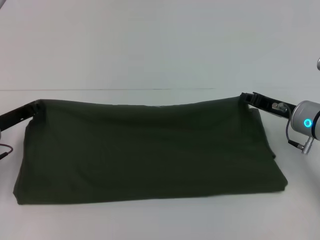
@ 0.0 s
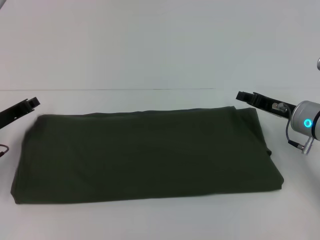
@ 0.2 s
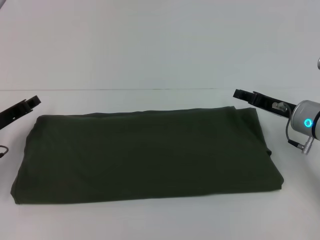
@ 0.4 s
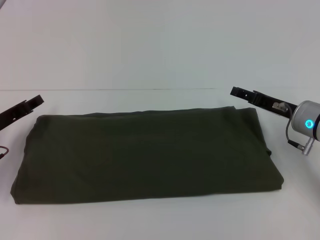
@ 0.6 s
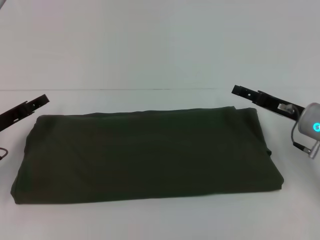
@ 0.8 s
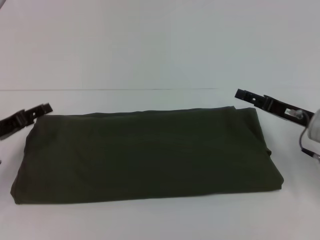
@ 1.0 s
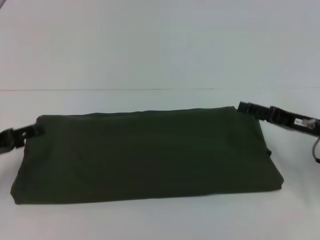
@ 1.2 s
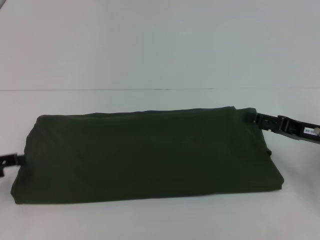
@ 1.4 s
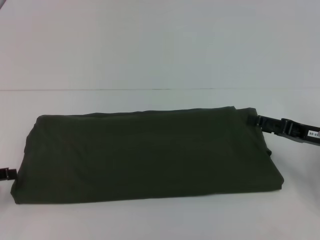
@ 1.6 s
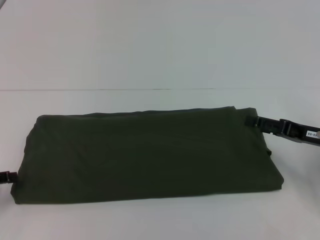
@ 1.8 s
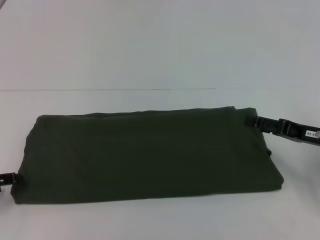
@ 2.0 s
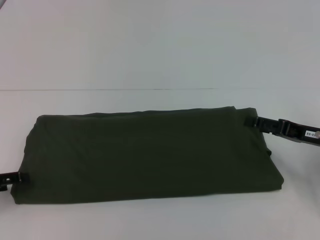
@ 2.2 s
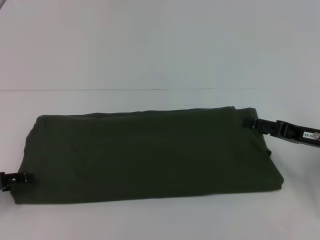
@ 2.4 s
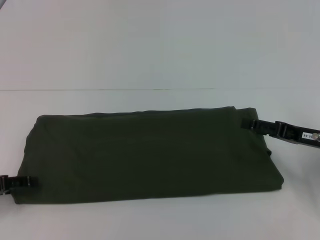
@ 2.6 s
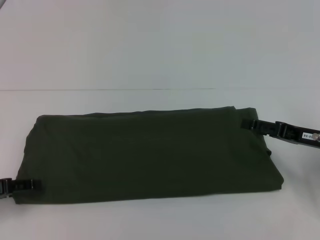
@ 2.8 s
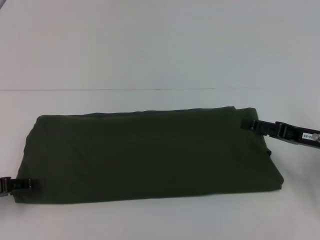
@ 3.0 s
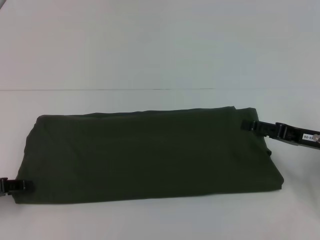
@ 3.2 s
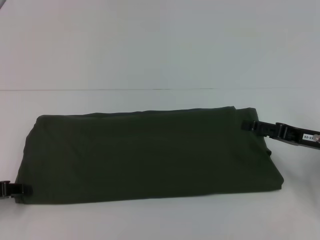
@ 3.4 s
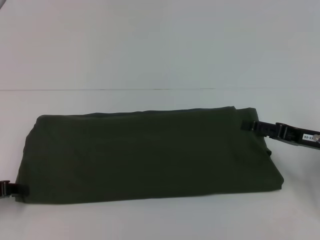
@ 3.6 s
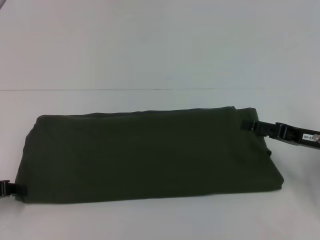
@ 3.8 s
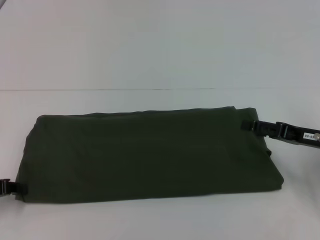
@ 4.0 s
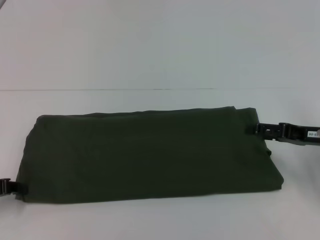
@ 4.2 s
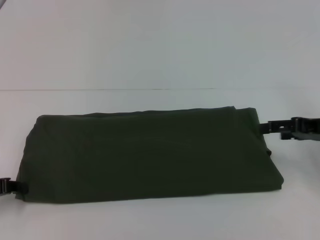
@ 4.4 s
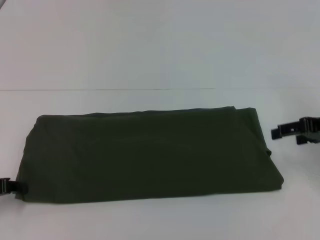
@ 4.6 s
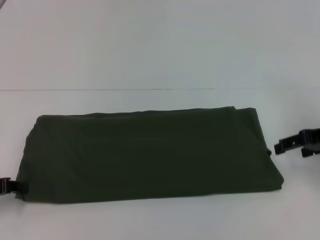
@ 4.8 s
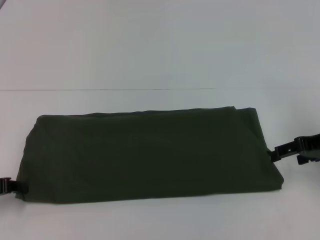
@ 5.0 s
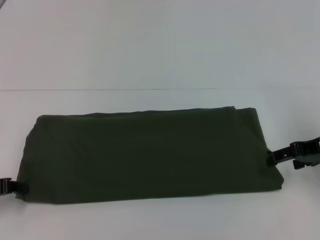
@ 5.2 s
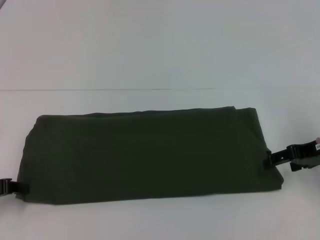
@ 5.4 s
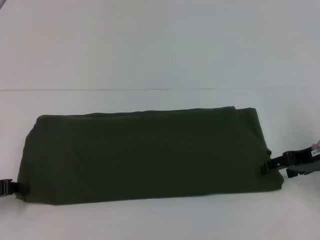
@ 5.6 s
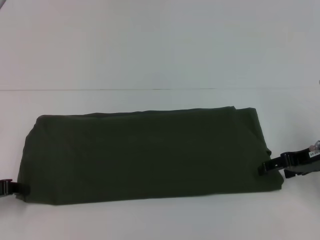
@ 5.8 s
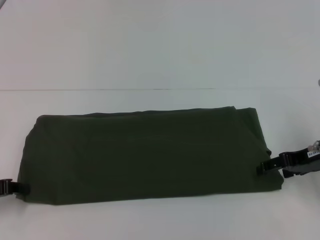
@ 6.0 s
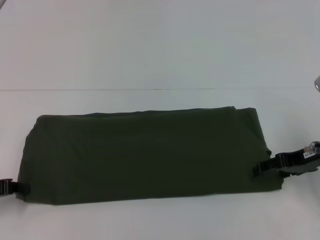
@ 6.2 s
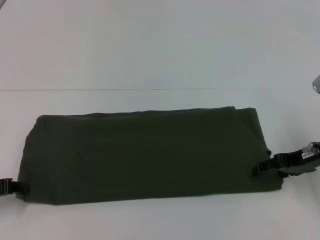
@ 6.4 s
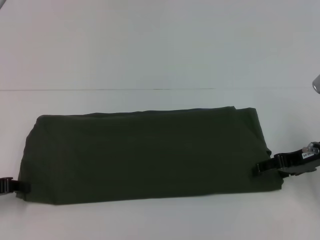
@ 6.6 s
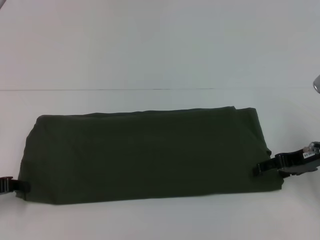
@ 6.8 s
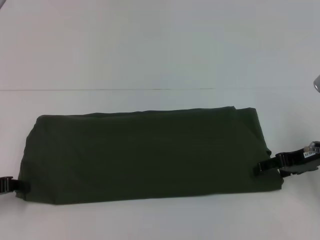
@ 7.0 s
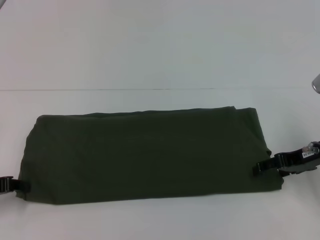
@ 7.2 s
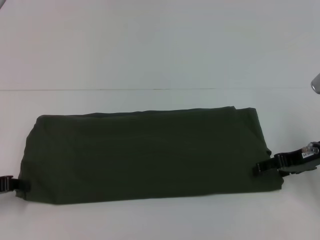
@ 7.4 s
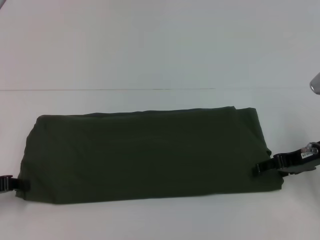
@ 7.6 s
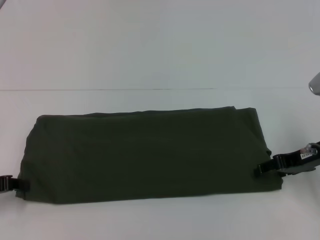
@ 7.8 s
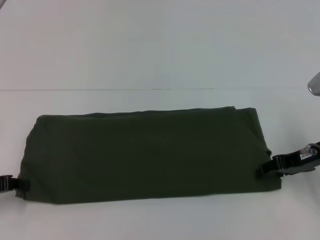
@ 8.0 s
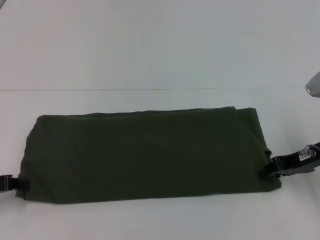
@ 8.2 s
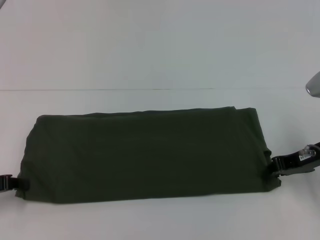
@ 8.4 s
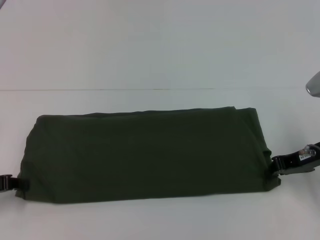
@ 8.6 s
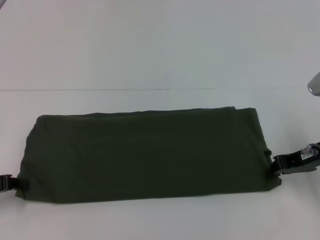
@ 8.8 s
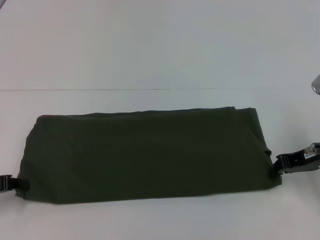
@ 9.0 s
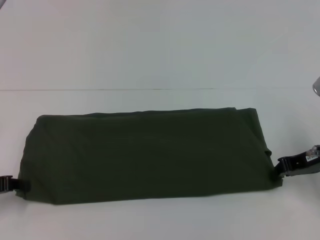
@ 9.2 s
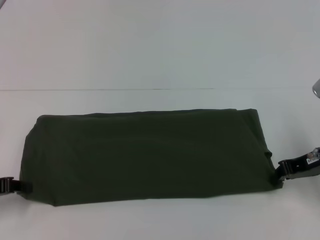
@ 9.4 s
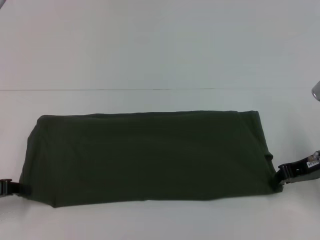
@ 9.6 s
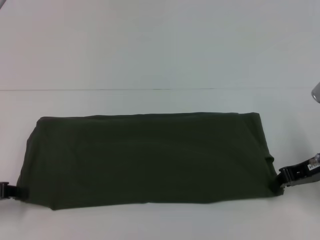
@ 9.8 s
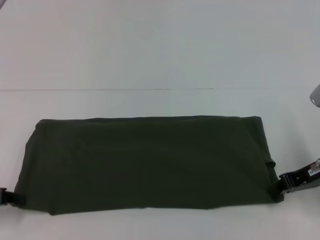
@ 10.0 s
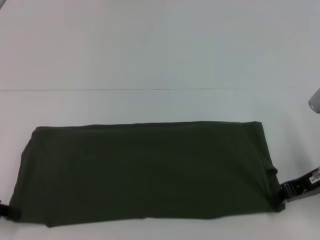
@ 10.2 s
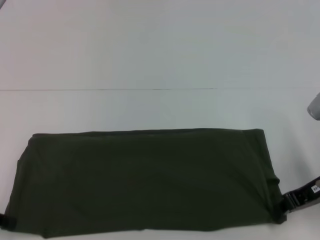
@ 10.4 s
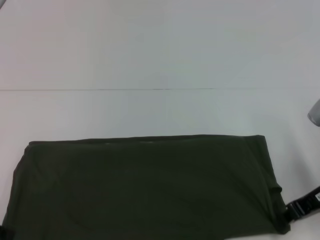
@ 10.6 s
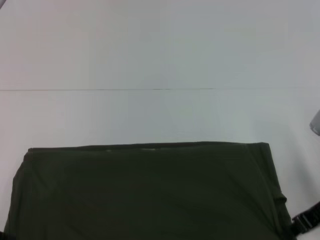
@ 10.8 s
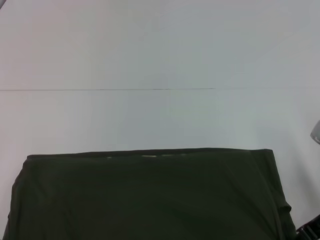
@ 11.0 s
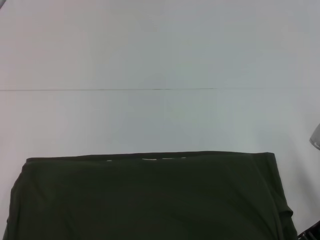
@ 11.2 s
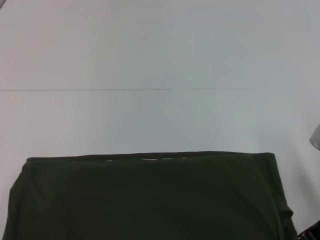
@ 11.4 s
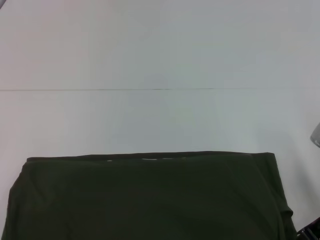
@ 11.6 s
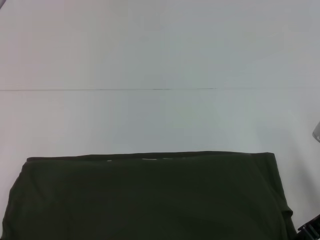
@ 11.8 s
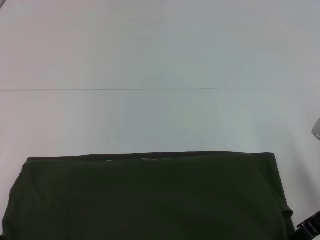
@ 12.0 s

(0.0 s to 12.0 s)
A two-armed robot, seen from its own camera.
0.0 s - 1.6 s: The right gripper is displaced backward and to the right by about 10 cm, and opens up. Meanwhile the left gripper heads backward and to the left, covering approximately 10 cm, and opens.
1.6 s - 3.0 s: The grippers make only small movements.
3.0 s - 4.4 s: The right gripper goes approximately 5 cm upward.
6.0 s - 7.6 s: Both grippers stay put.
7.6 s - 9.0 s: The right gripper closes up.
10.4 s - 12.0 s: The grippers stay close to where they were, moving slightly.

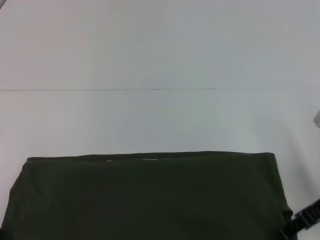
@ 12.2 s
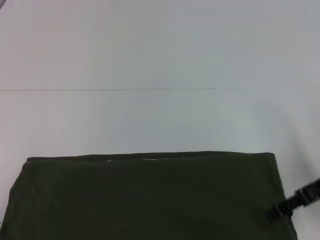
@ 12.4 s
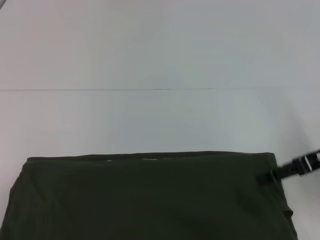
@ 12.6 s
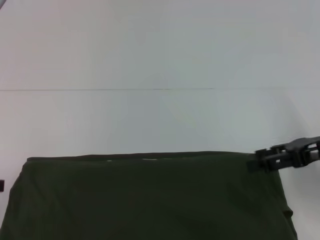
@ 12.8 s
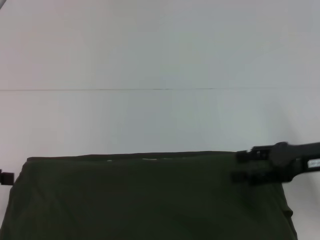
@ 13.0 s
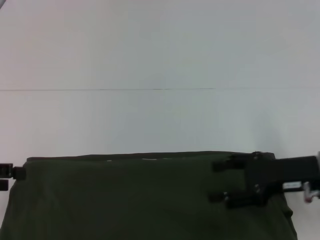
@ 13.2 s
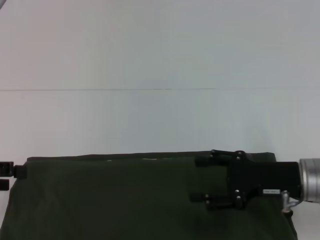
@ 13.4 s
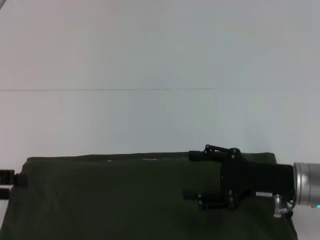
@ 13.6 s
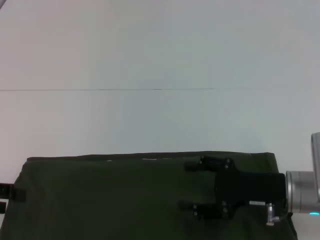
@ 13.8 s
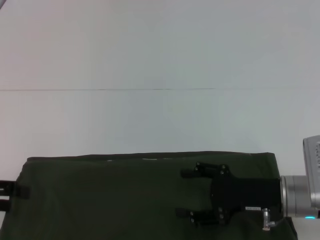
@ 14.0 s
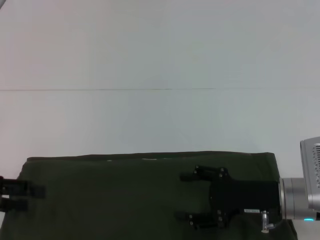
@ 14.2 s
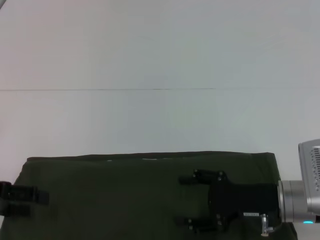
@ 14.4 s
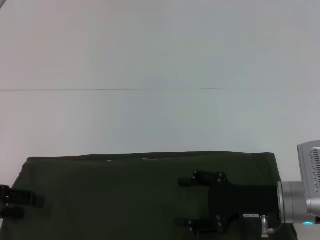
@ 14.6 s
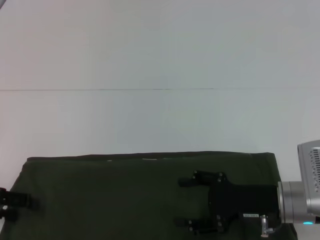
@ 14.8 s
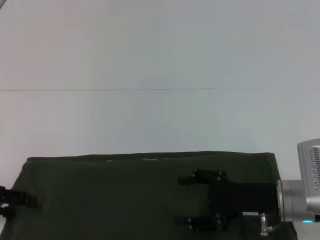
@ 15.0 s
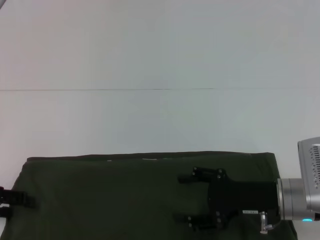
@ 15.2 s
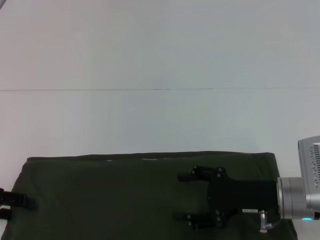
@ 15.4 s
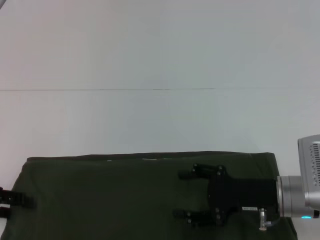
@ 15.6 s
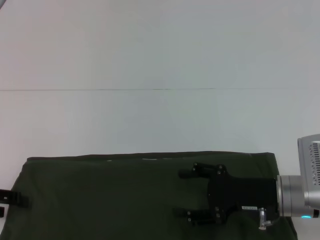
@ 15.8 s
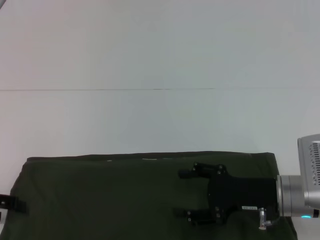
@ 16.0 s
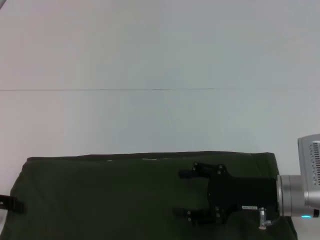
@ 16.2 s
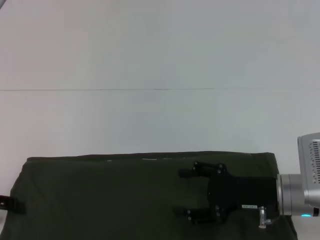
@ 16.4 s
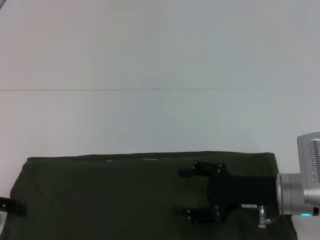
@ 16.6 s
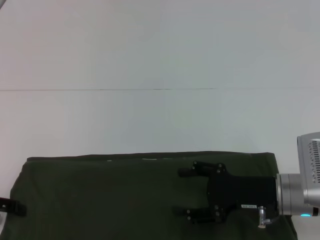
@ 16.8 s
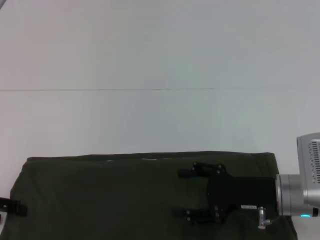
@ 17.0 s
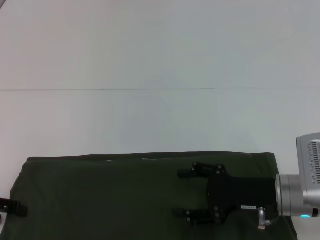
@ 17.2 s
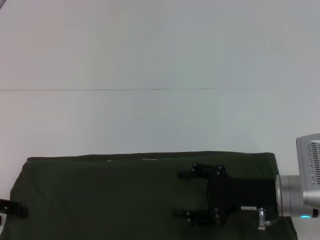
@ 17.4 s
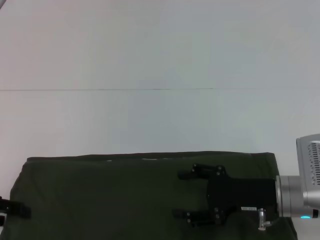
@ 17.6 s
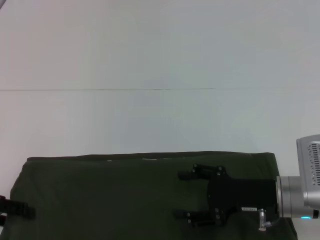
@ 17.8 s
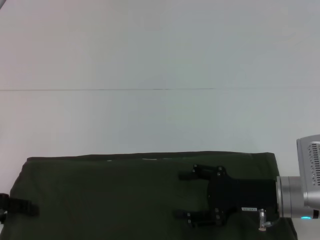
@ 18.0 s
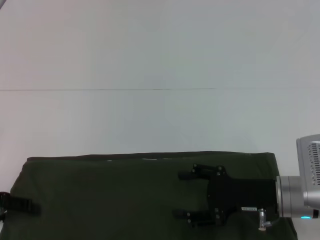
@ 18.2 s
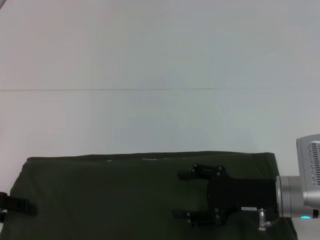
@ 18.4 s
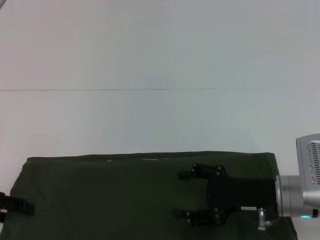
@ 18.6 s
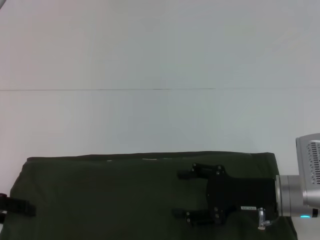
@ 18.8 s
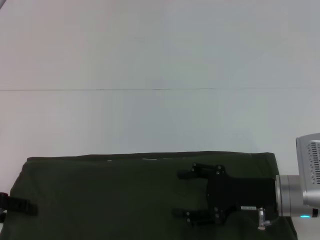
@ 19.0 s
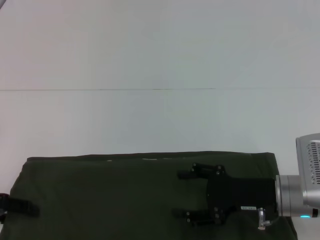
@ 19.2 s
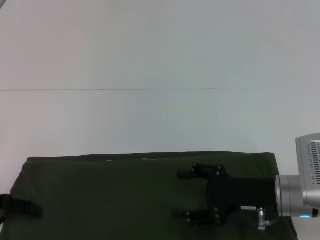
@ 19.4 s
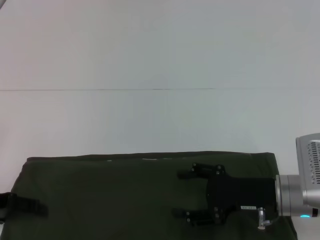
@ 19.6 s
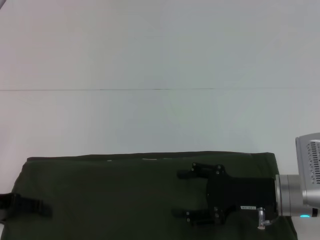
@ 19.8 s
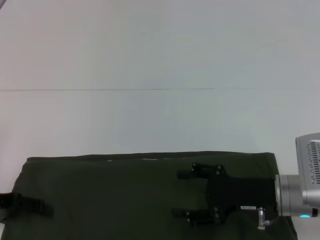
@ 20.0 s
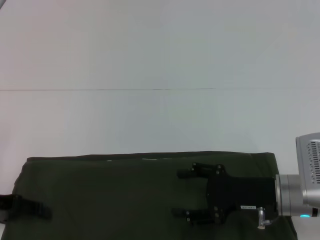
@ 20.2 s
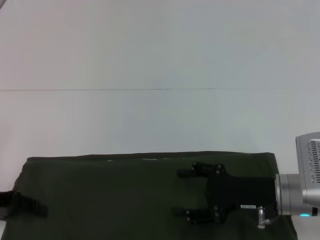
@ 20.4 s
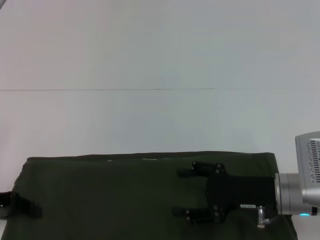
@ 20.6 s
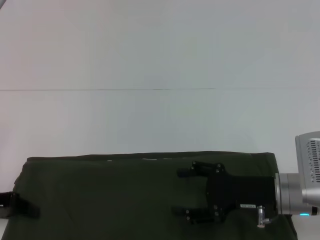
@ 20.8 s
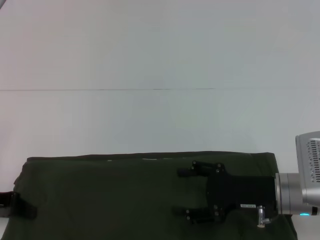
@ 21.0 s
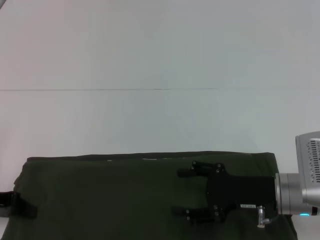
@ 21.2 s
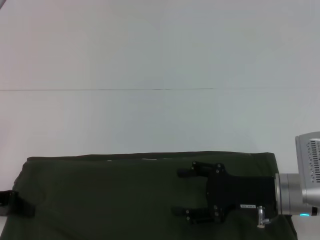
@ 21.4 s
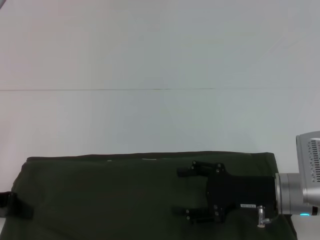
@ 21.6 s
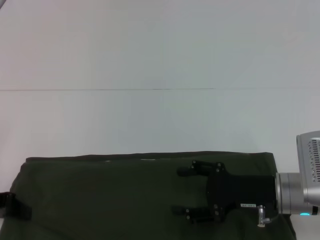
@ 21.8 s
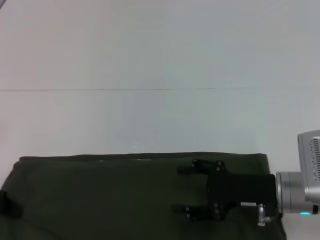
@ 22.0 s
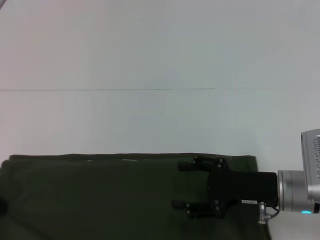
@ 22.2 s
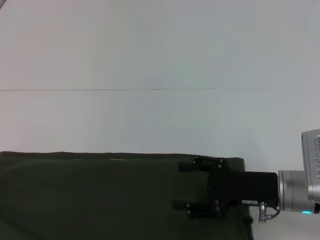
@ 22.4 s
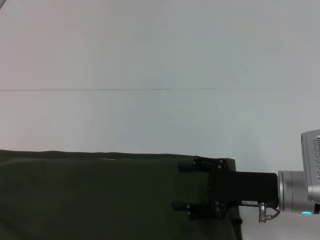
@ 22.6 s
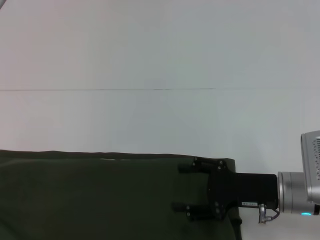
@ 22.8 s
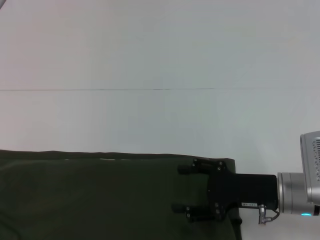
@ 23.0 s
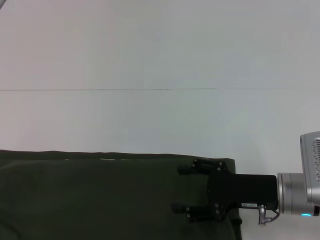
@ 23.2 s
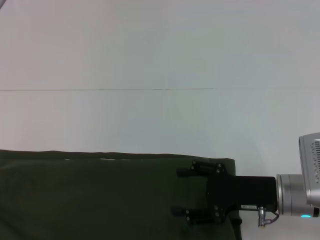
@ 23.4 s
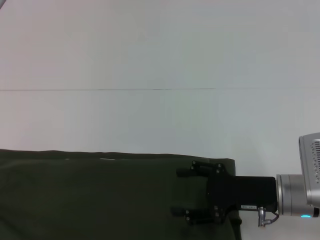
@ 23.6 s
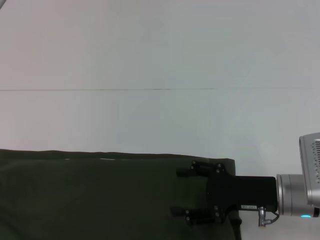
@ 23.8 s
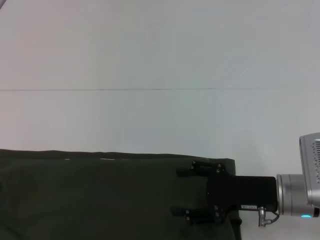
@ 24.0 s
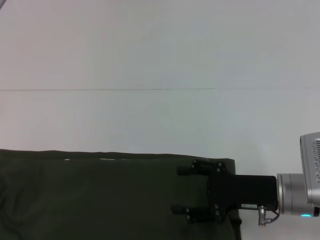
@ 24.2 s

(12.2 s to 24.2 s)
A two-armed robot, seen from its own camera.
12.2 s - 13.8 s: The left gripper opens up. Meanwhile the right gripper is displaced to the left and downward by roughly 10 cm, and opens.
13.8 s - 18.2 s: There are only small adjustments of the grippers.
18.2 s - 19.8 s: Both grippers stay put.
21.2 s - 22.6 s: The left gripper travels to the left by some 5 cm.
22.6 s - 24.2 s: The grippers move only a little.
